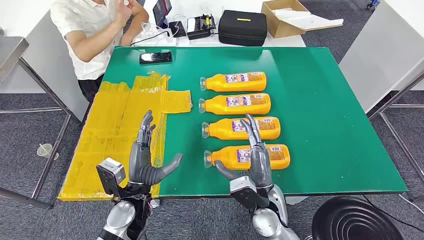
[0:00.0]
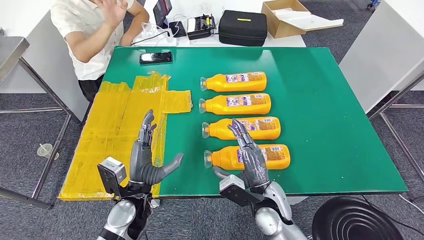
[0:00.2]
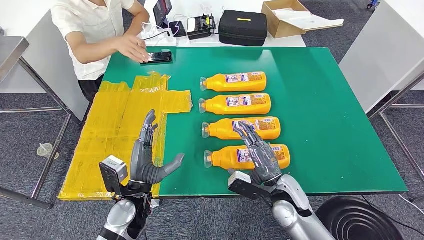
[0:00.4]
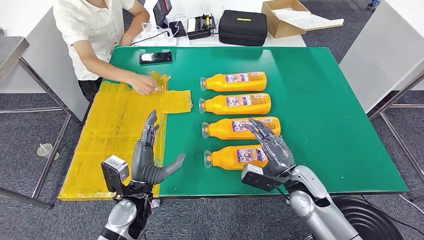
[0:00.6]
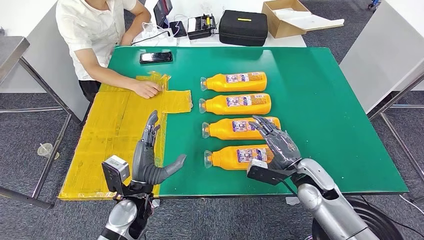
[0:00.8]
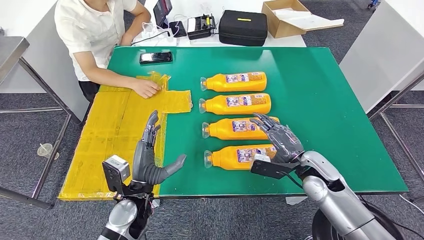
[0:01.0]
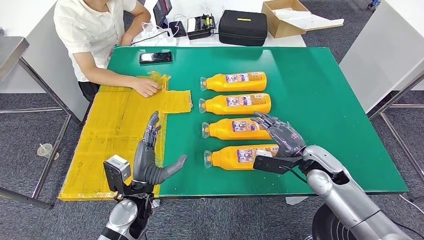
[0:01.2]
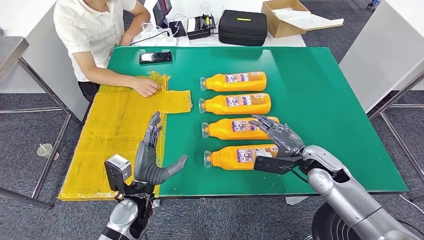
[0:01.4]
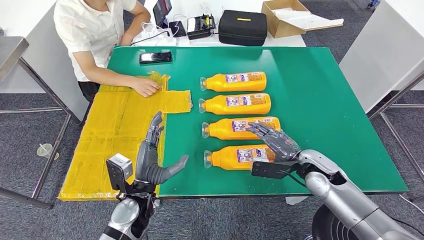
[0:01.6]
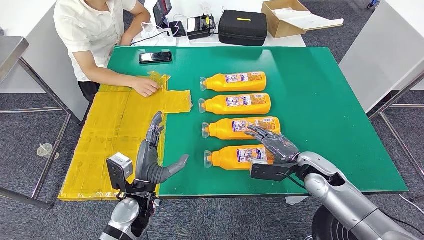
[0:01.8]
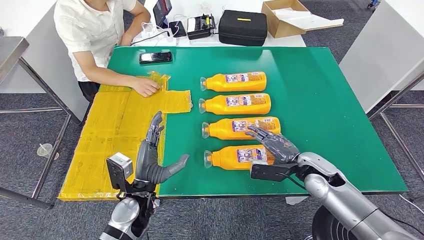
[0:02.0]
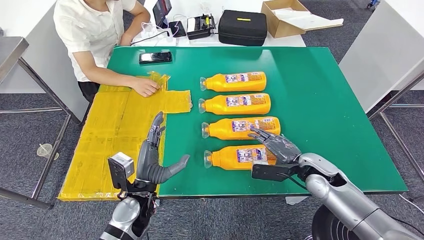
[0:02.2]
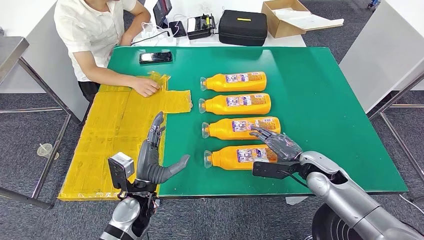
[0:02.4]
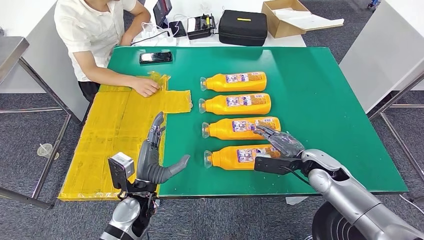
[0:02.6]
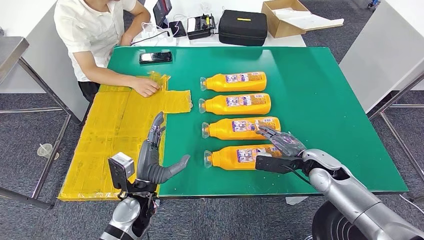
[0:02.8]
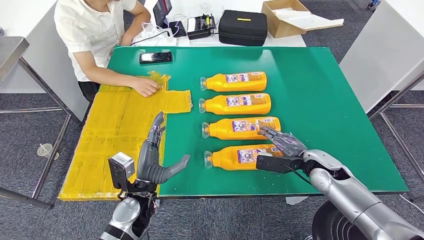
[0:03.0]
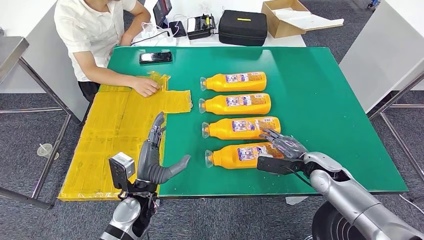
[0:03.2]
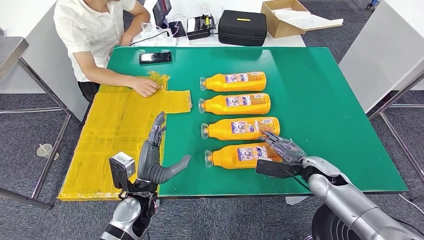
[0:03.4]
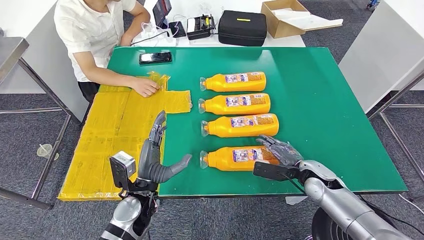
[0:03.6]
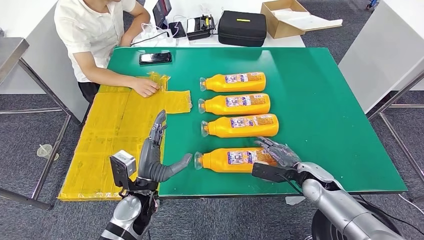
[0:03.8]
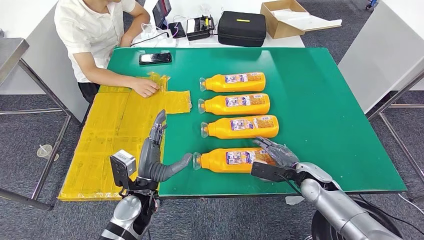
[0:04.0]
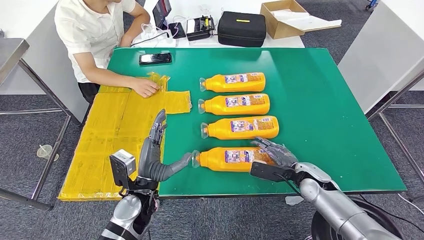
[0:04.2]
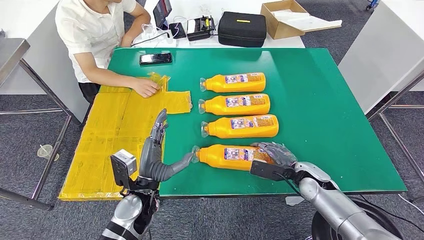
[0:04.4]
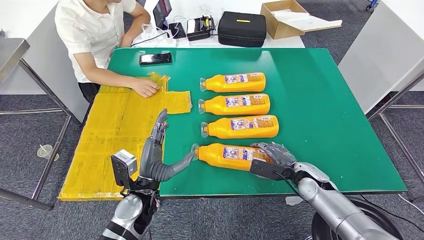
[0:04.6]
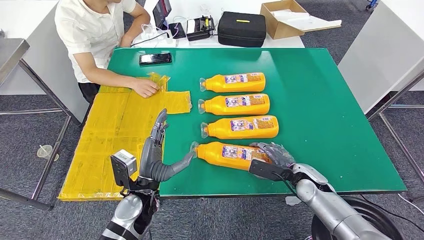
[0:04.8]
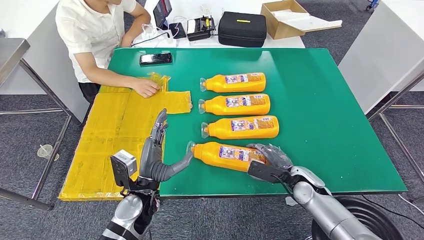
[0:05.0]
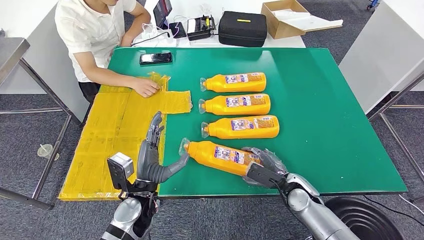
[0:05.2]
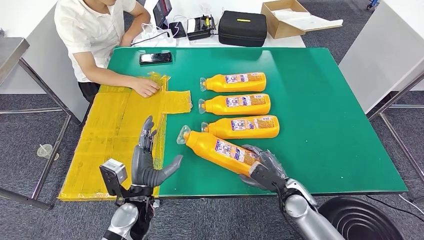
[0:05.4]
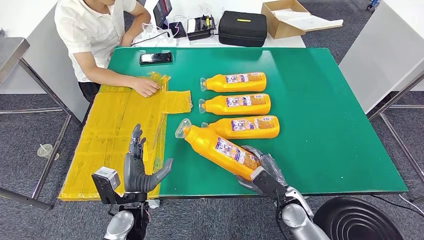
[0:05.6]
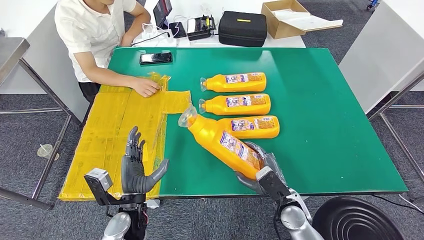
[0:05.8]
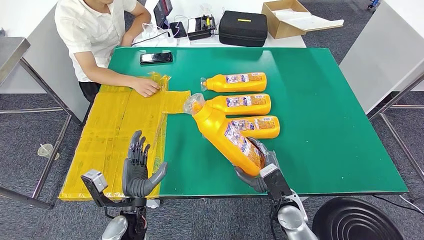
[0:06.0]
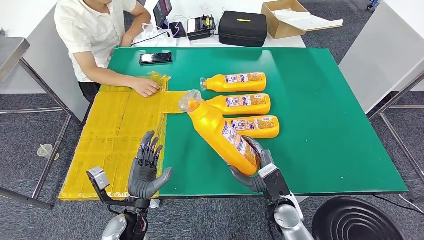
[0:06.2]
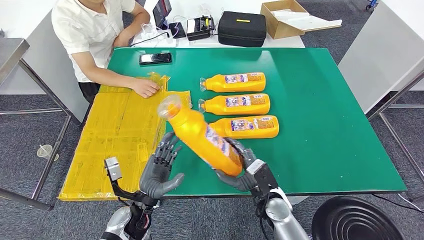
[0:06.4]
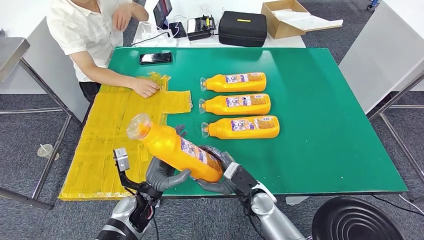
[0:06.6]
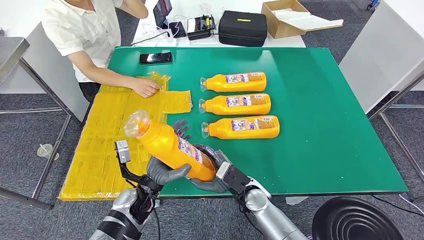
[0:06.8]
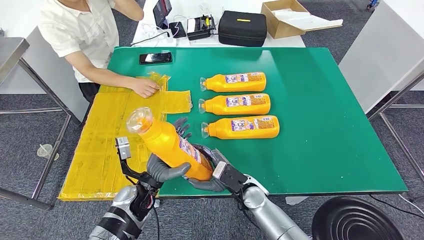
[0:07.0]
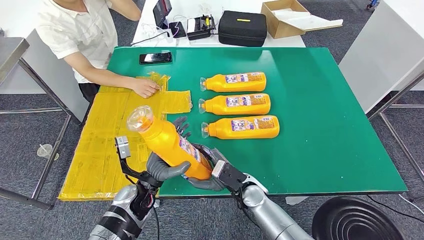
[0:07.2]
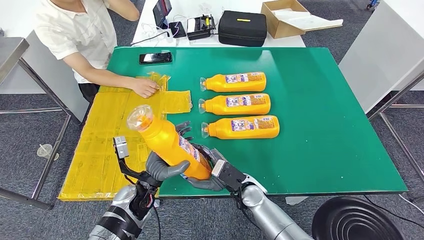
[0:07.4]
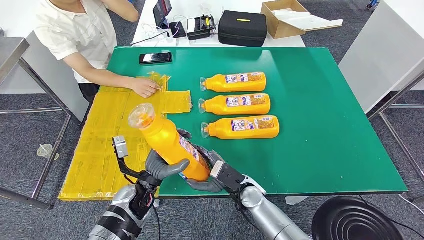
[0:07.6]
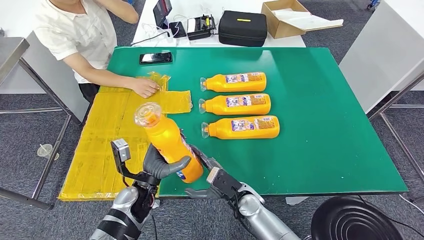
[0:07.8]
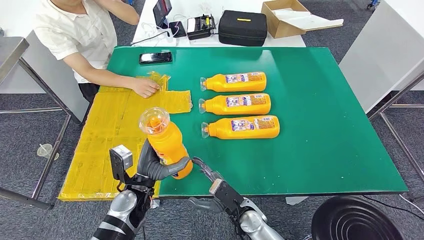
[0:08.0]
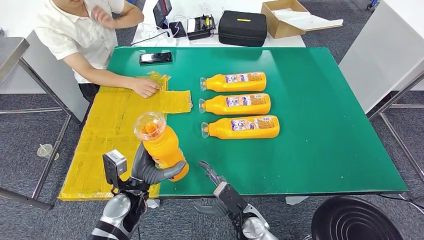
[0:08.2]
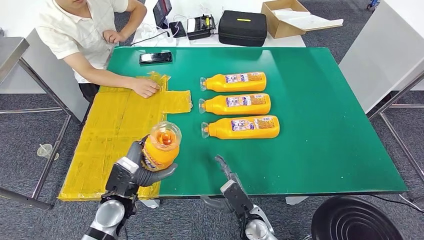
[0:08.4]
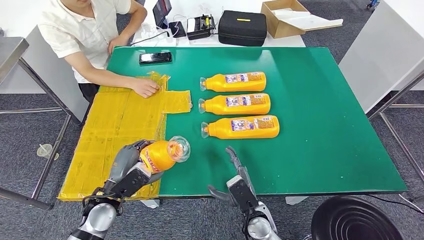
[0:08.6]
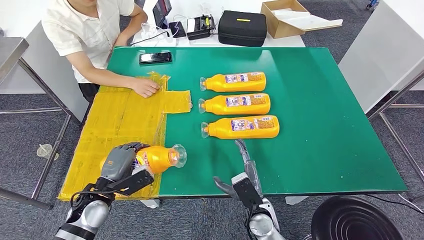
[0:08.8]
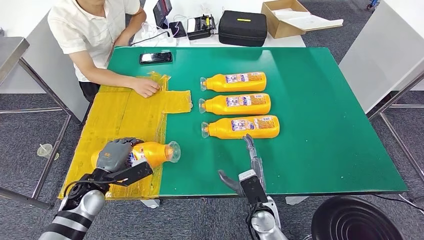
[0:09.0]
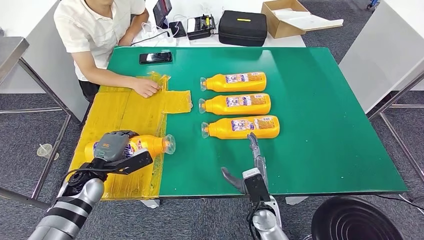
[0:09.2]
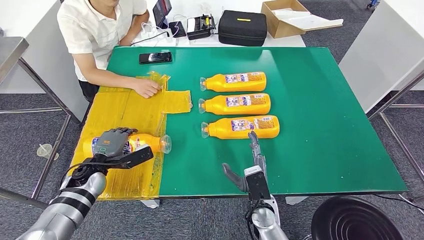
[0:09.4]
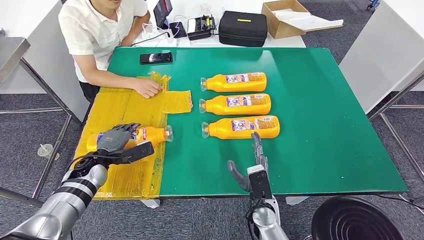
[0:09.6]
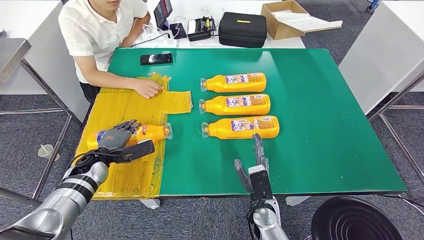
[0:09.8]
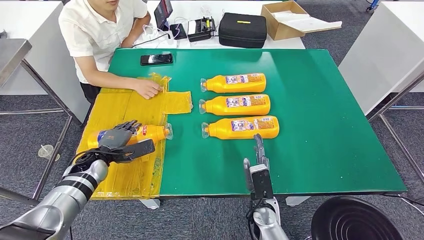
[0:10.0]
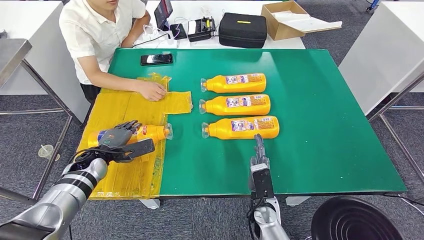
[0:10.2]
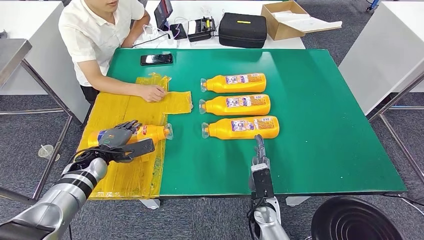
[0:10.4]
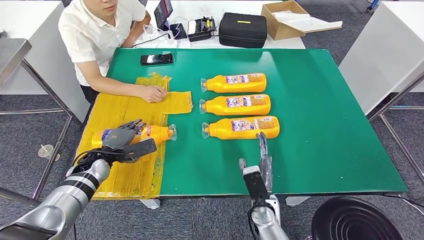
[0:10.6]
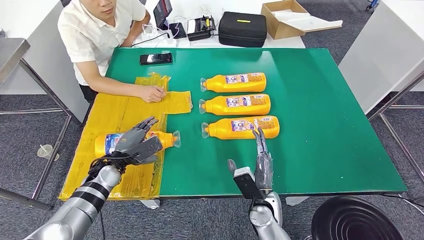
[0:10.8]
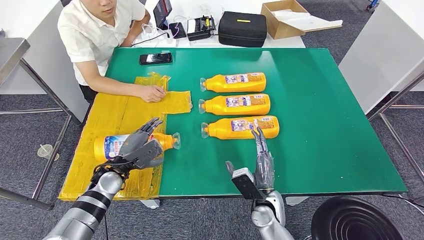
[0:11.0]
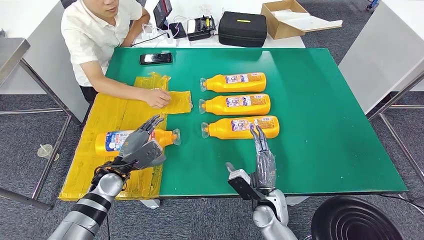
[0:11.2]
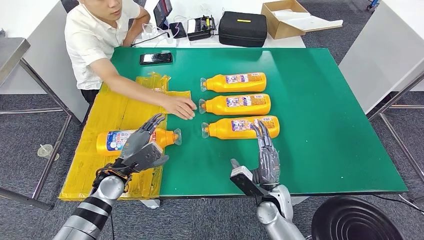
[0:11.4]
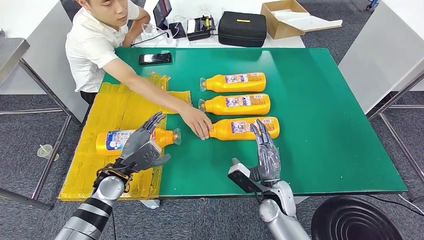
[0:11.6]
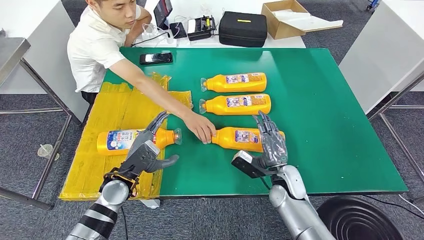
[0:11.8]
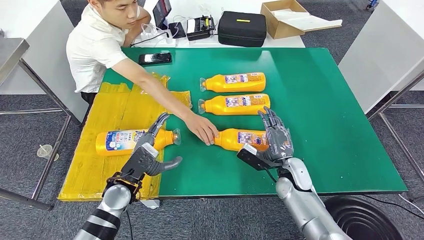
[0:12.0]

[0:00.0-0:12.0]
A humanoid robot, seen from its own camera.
Step, 0:00.0 to 0:07.2: Take the fast-moving consumer goods bottle from the table.
Step, 0:07.4 to 0:09.6: Flip the fast-moving consumer goods bottle to the front side.
0:01.6 to 0:04.4: The hands stay close to where they were, moving slightly.
0:04.4 to 0:06.0: The right hand shifts some 10 cm to the left and backward. The left hand ends up approximately 5 cm from where it was.
0:06.0 to 0:07.6: The right hand moves to the left, about 10 cm; the left hand is displaced forward by roughly 5 cm.
0:07.6 to 0:09.0: The left hand travels to the left by some 15 cm; the right hand changes place by about 5 cm.

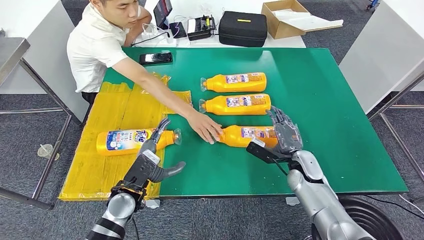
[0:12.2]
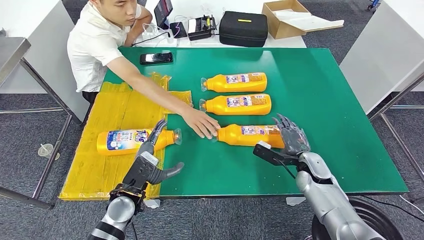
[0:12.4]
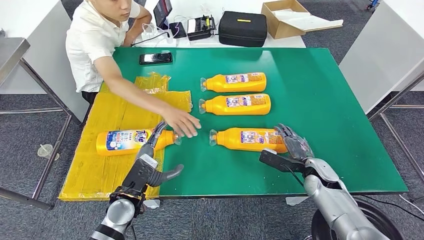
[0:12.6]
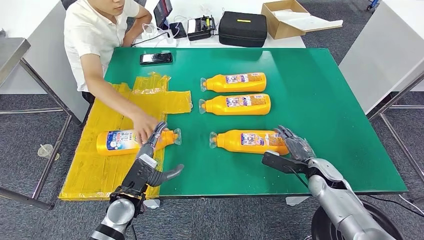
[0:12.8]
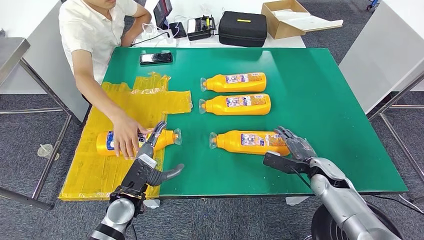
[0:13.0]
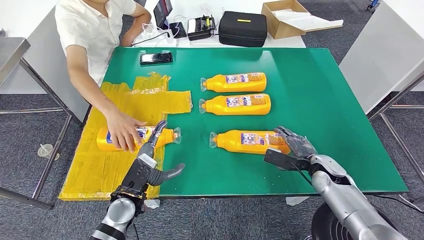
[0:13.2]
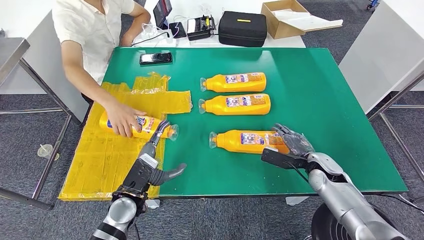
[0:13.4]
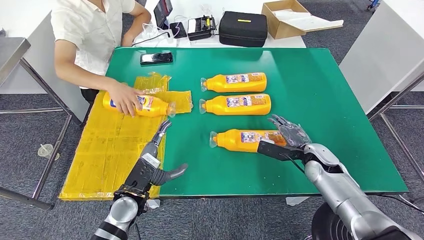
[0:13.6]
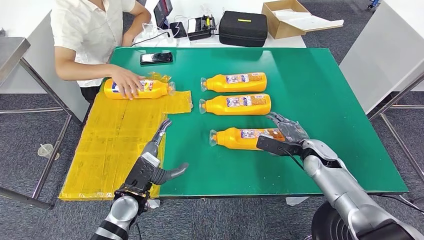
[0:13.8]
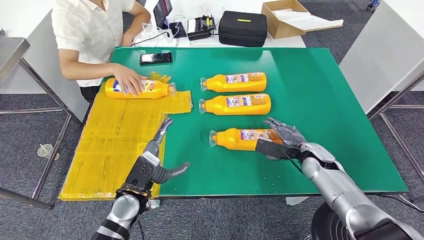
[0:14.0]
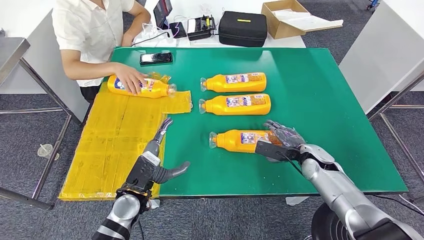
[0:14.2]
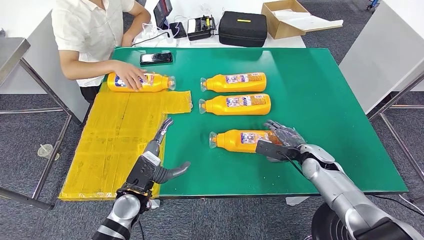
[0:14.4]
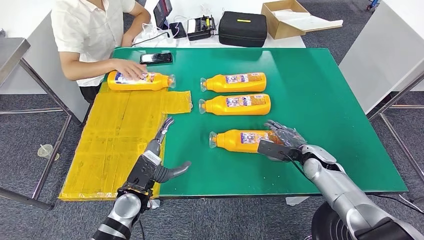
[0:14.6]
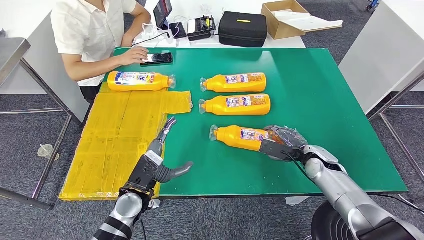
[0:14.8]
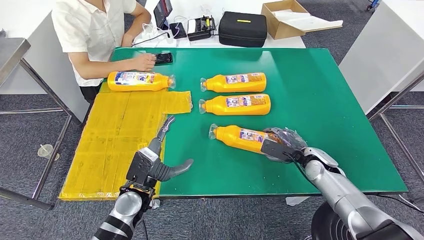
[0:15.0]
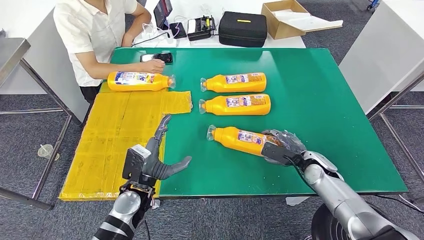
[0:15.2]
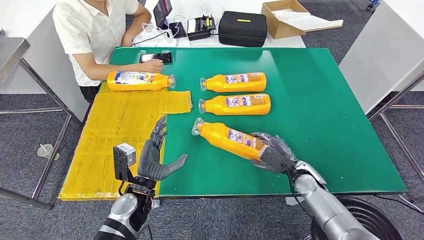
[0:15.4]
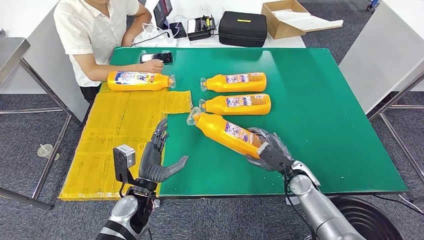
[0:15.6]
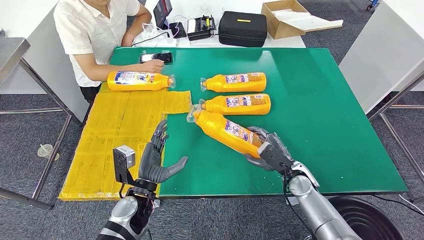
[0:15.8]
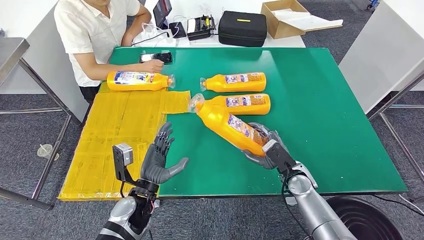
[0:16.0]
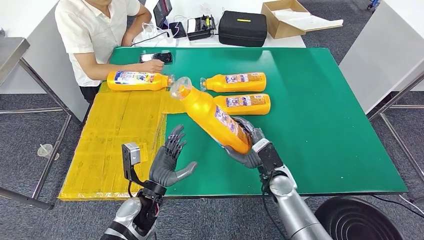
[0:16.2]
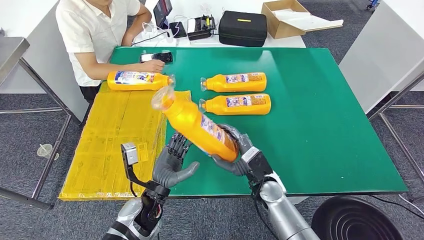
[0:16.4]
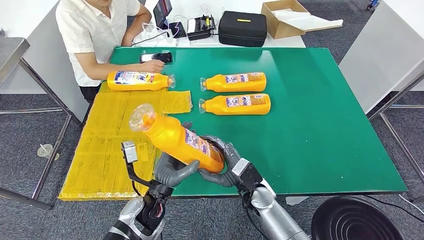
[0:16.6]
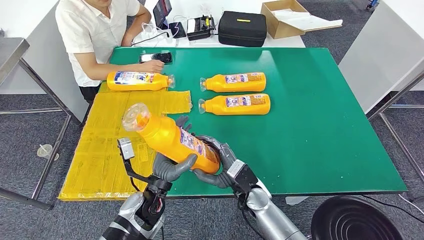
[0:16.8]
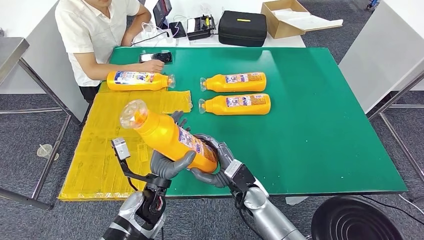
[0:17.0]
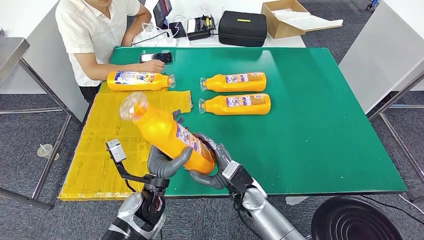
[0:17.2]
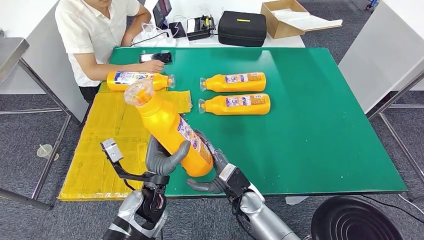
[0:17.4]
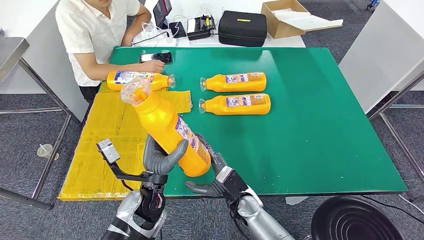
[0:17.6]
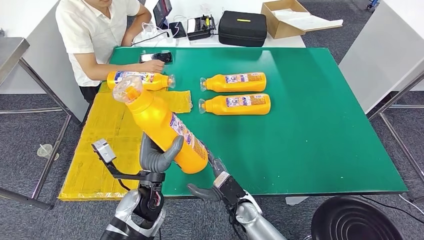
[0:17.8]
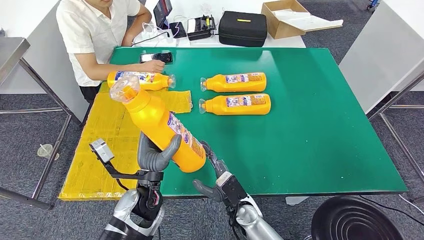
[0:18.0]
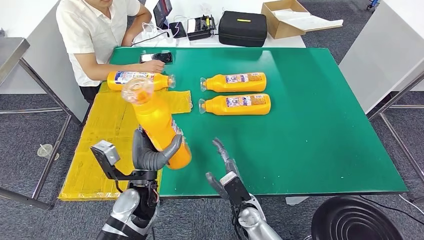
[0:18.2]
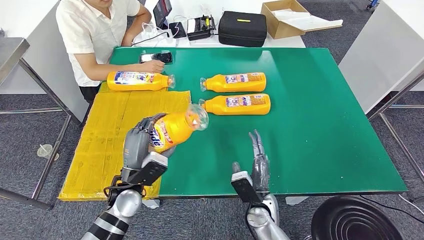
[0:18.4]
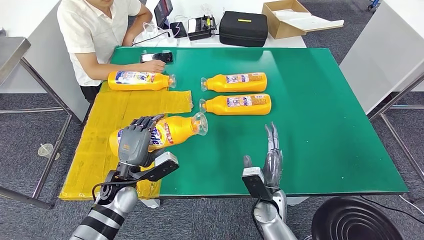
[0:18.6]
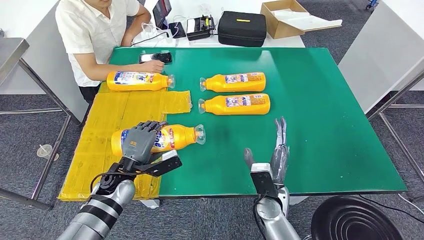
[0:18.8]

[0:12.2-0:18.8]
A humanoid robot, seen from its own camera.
Step, 0:12.2 to 0:16.6: Pick up the fast-moving consumer goods bottle from the table.
0:13.8 to 0:15.4: The right hand moves roughly 5 cm.
0:15.4 to 0:17.2: The left hand changes place by approximately 5 cm, while the right hand moves to the left, some 20 cm.
0:17.2 to 0:18.8: The right hand shifts approximately 5 cm to the right; the left hand goes roughly 10 cm to the left and forward.
